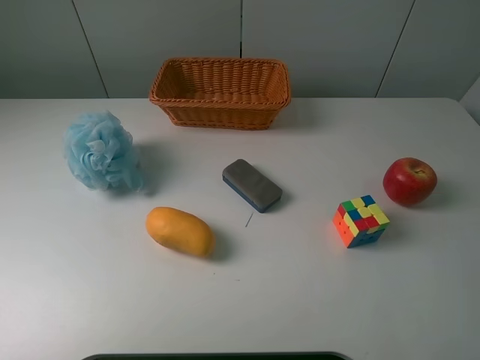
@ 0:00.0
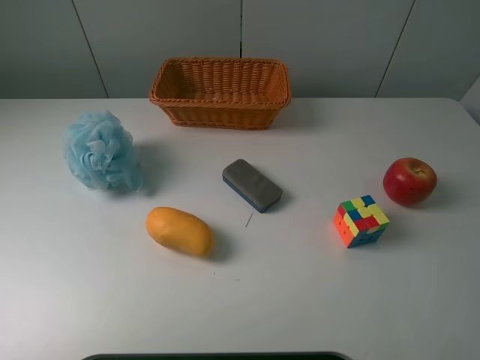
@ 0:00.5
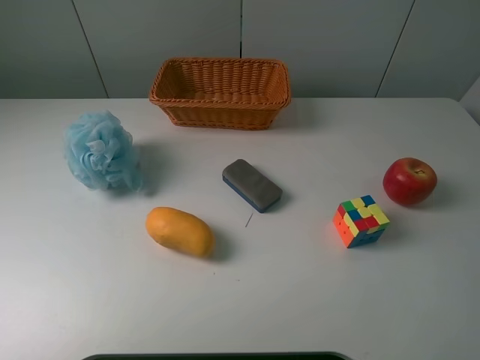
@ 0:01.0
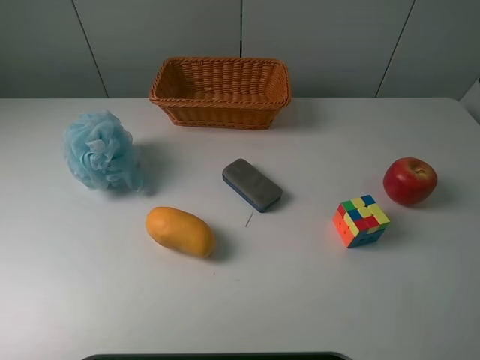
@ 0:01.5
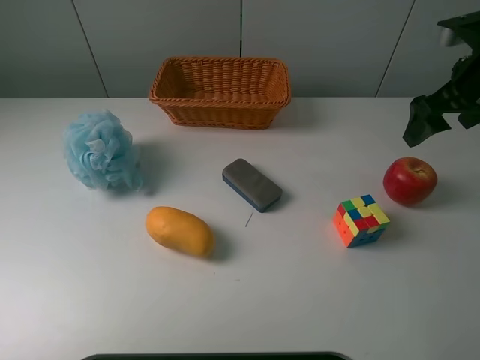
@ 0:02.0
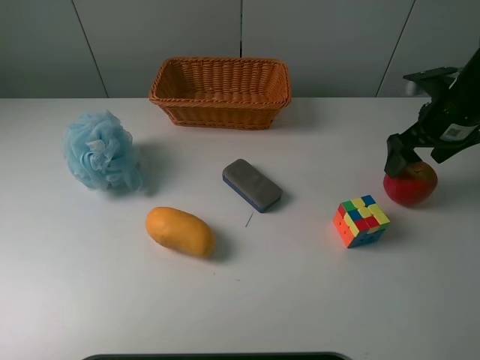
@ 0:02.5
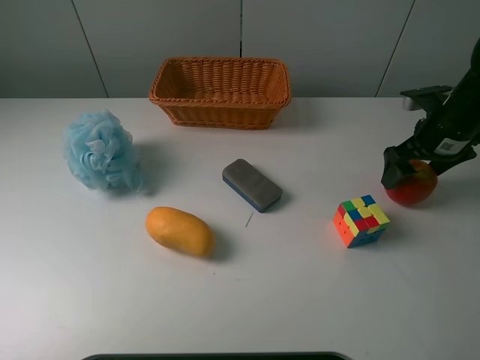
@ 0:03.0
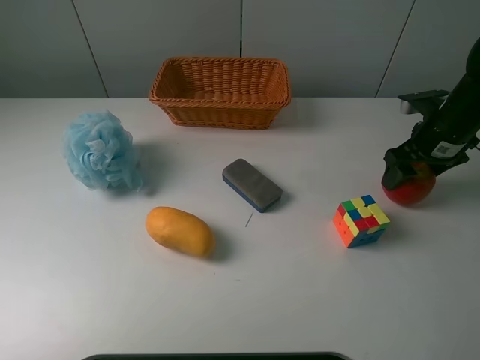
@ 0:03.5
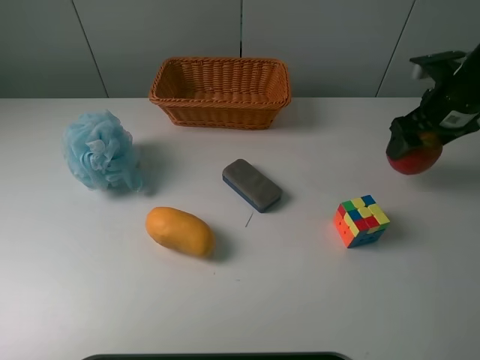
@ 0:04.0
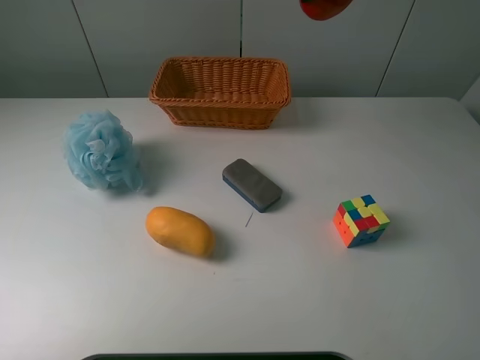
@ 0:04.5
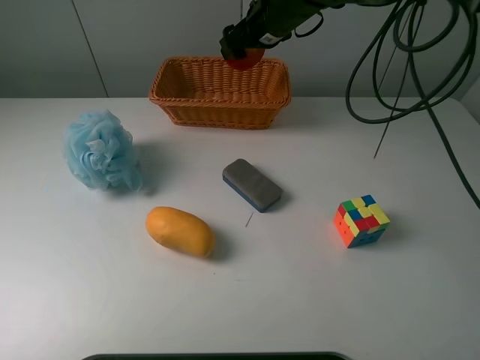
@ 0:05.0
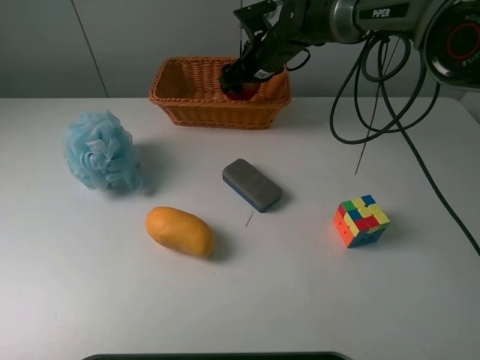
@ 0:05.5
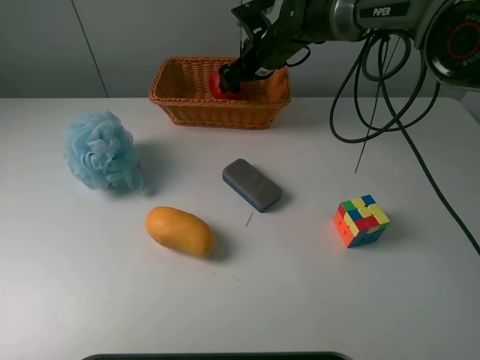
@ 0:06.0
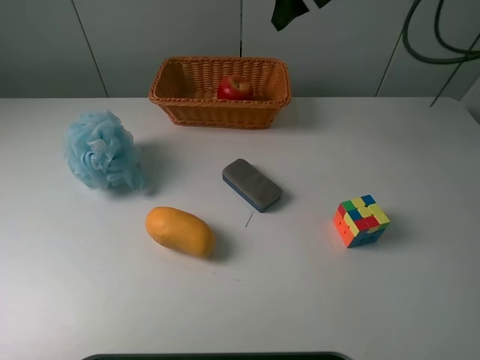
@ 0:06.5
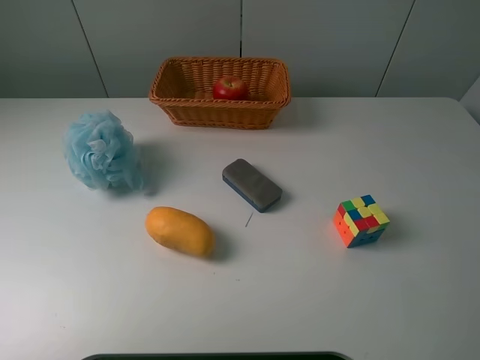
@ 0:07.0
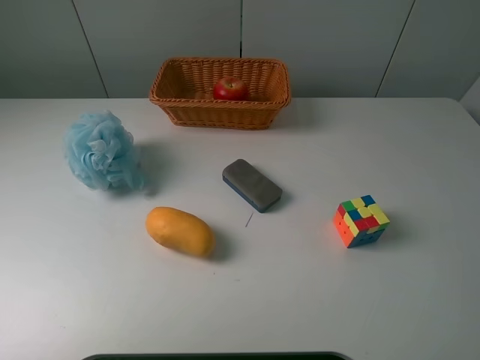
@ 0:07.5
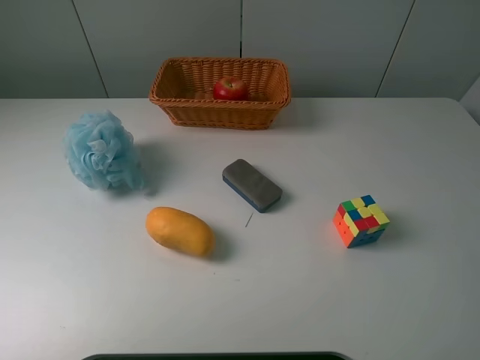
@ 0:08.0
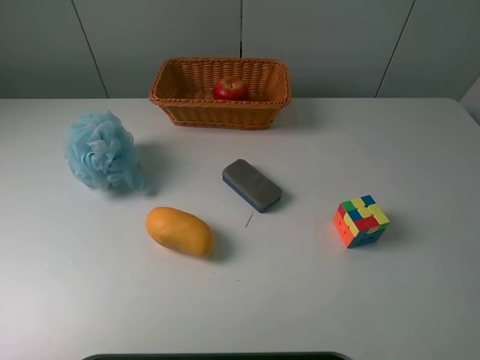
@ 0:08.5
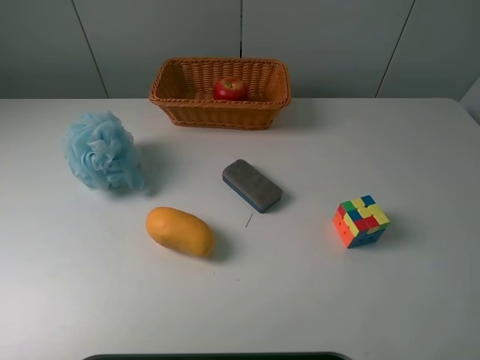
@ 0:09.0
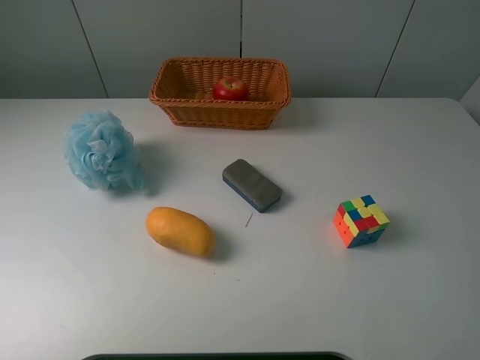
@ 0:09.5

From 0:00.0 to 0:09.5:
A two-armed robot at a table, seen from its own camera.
Task of the whole recording: use a picker to grab the item closest to the cube and place it in the basket.
Step, from 0:00.0 to 0:03.0: Grasp the apple with the right gripper.
Step, from 0:03.5 to 0:06.0: Place the apple into the basket with the right gripper.
From 0:00.0 to 0:02.0: The right gripper is displaced forward by approximately 30 cm.
From 0:02.0 to 0:04.0: The right gripper closes.
From 0:04.0 to 0:05.5: The right gripper is displaced to the left and forward by about 30 cm.
From 0:05.5 to 0:07.5: The right gripper shifts approximately 50 cm backward, upward and to the right, and opens up.
